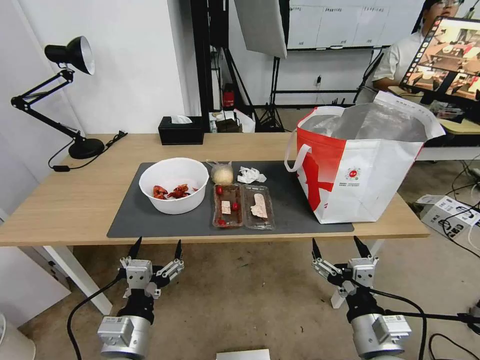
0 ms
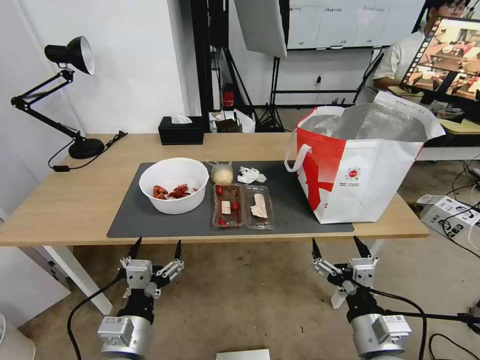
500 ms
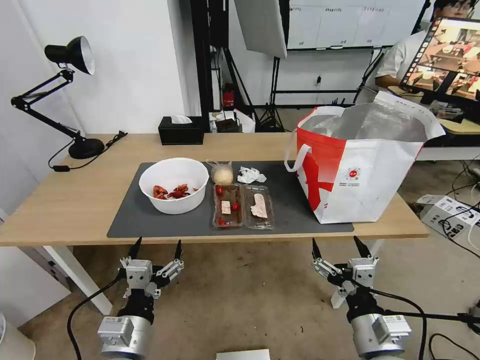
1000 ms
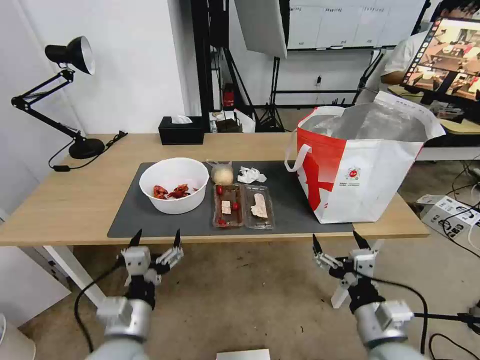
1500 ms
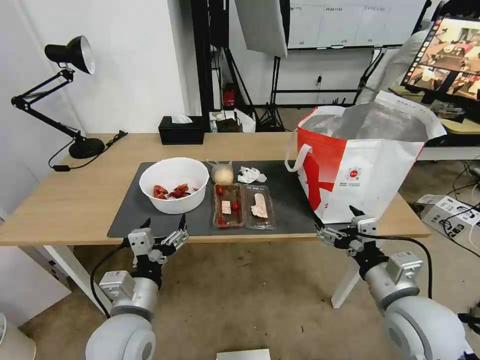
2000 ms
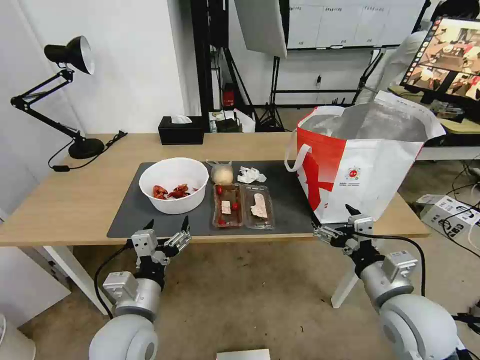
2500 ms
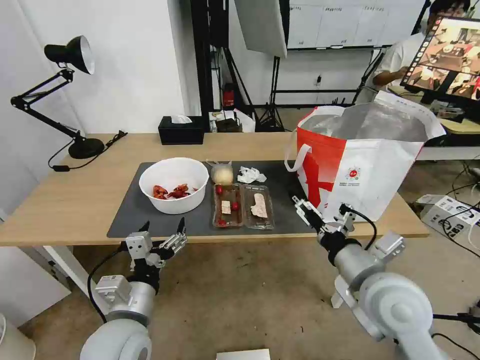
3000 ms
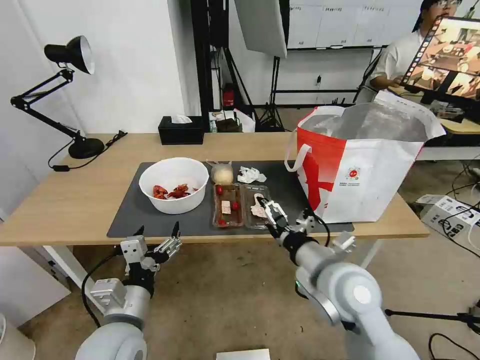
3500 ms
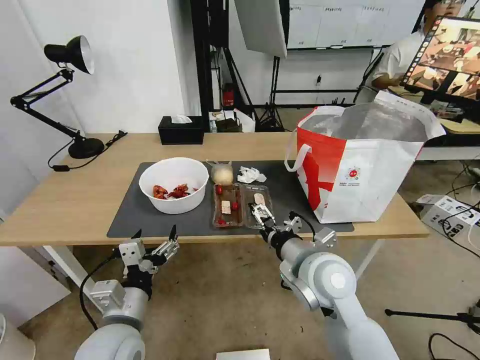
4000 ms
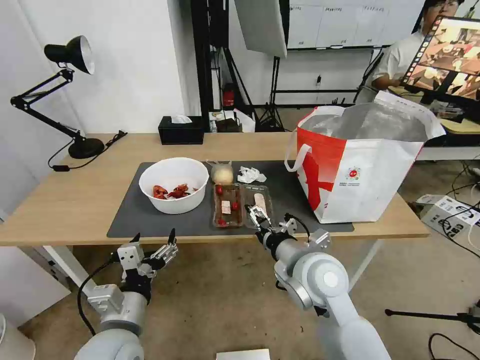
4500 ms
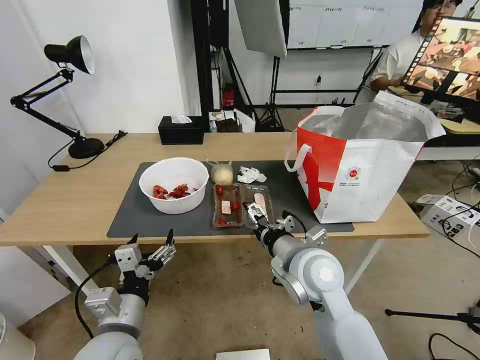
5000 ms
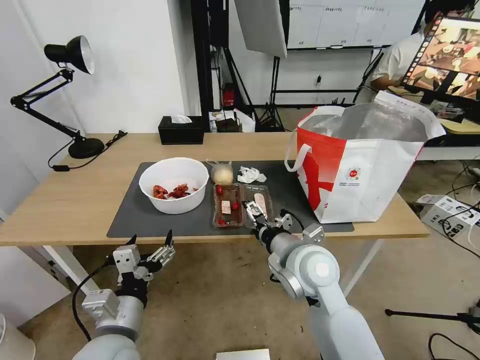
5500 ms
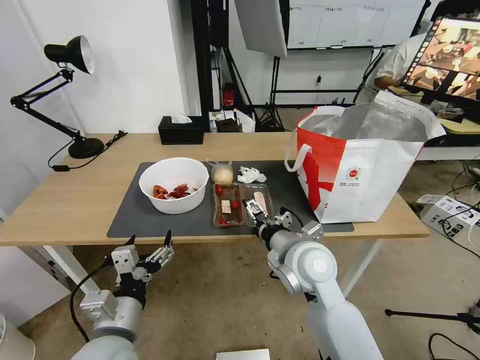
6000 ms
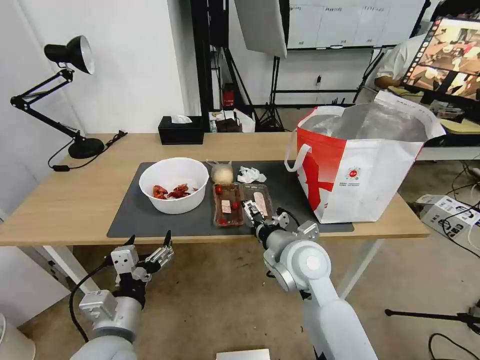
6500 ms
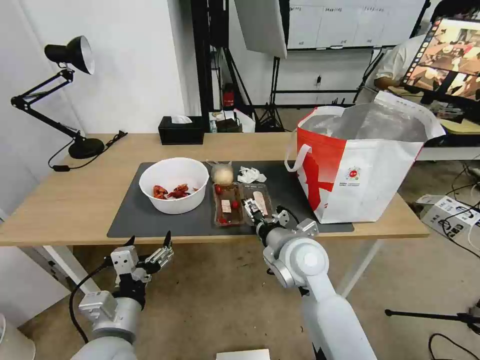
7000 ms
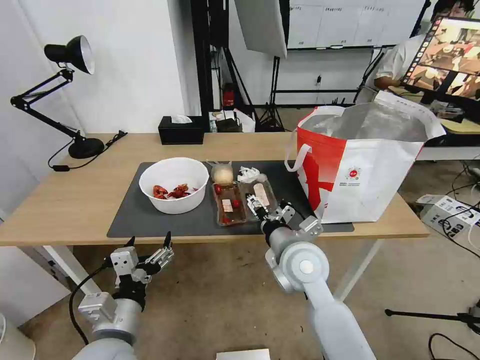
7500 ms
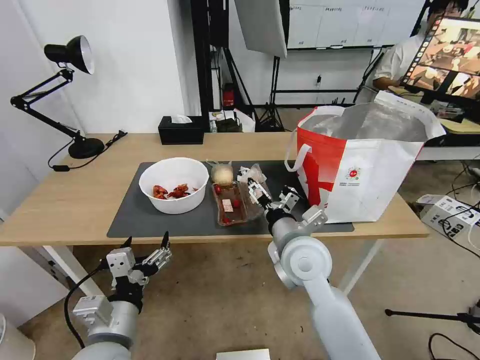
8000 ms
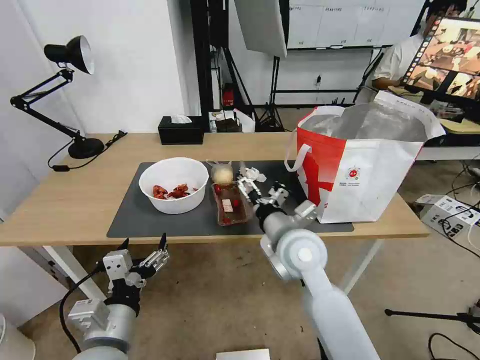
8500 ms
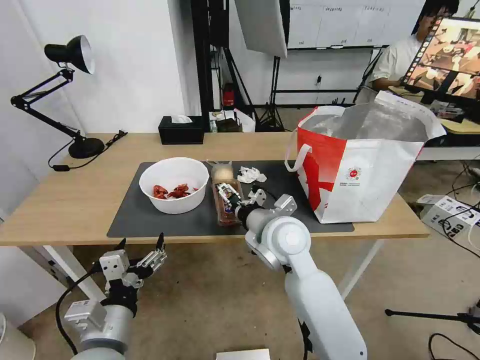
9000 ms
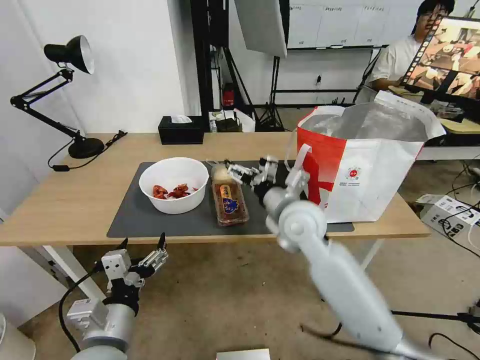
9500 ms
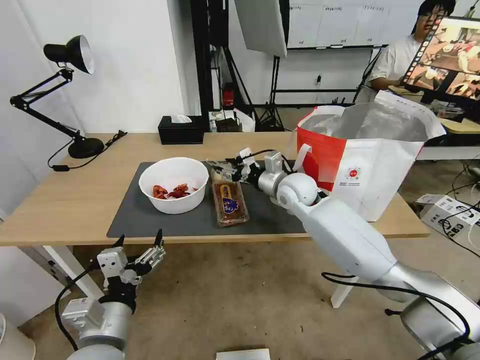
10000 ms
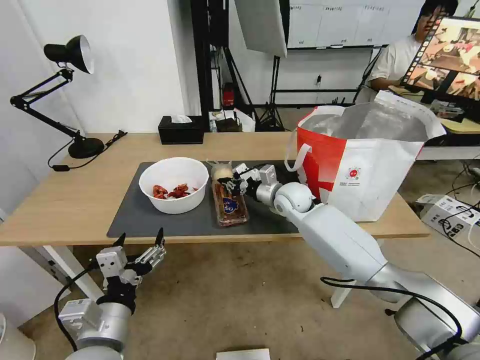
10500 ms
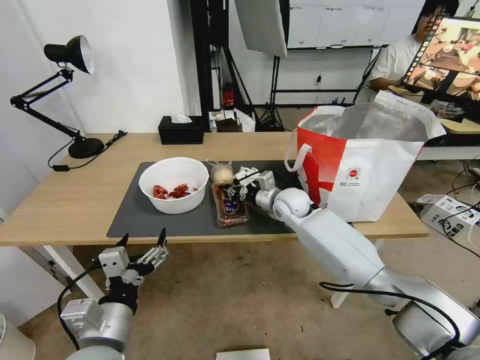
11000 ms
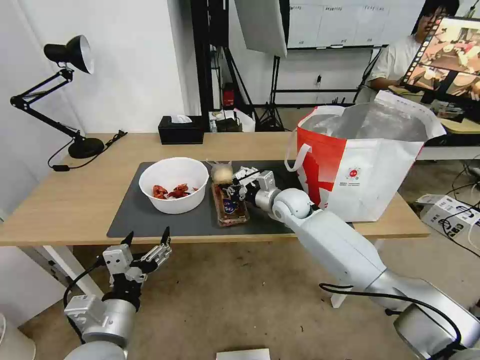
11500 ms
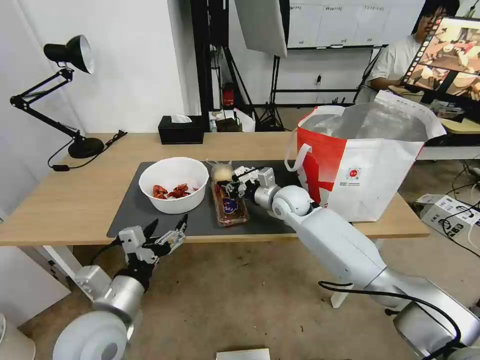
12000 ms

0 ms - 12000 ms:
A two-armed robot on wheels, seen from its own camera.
Task of the whole recording: Pick up the trash from the table and place it into the takeout bag.
2000 ms - 4000 ms: The right gripper goes about 15 cm to the left and forward.
4000 ms - 6000 ms: The grippers make only small movements.
8000 ms - 10000 ms: The right gripper travels forward by about 20 cm, and closes.
10000 ms - 12000 ms: The right gripper closes.

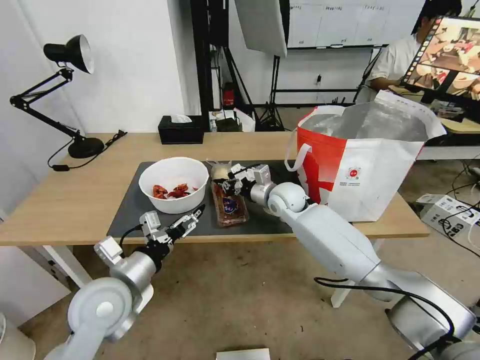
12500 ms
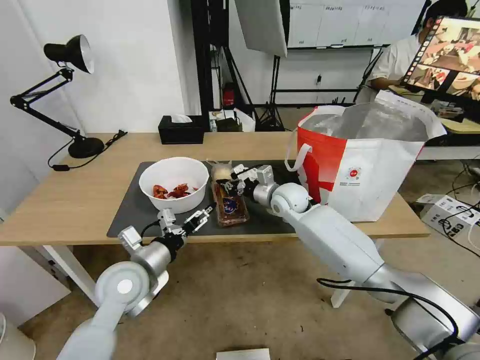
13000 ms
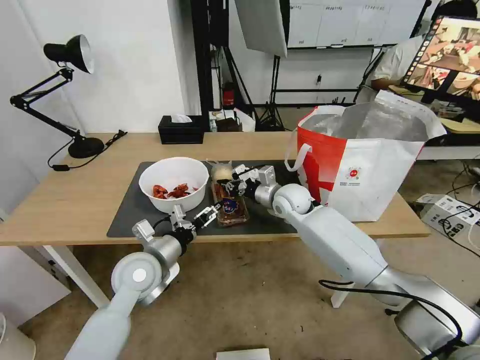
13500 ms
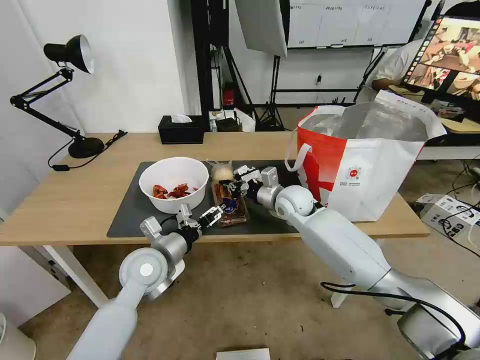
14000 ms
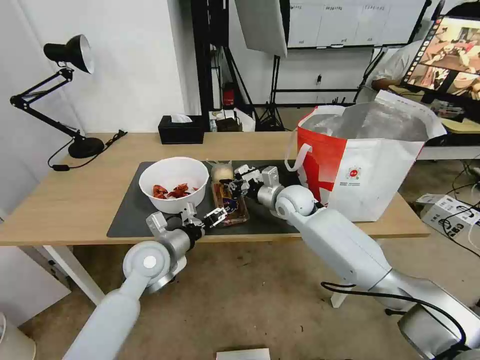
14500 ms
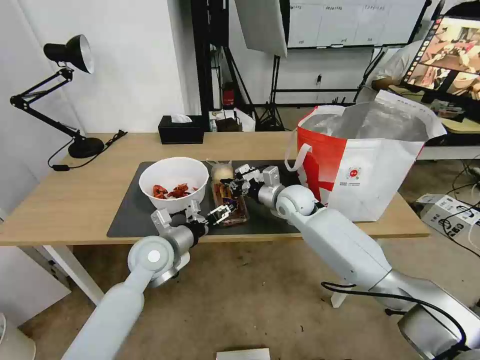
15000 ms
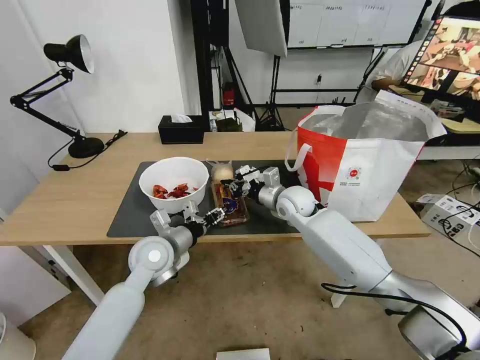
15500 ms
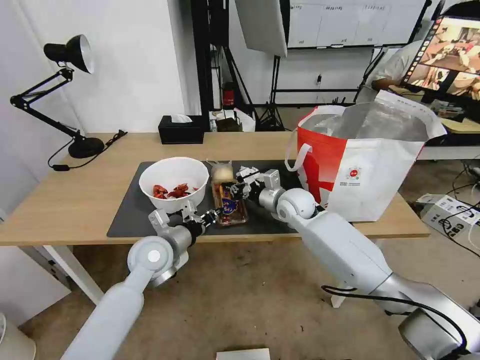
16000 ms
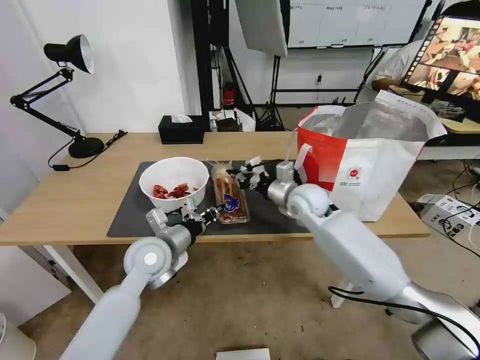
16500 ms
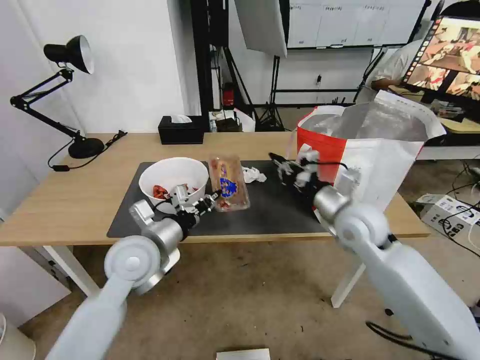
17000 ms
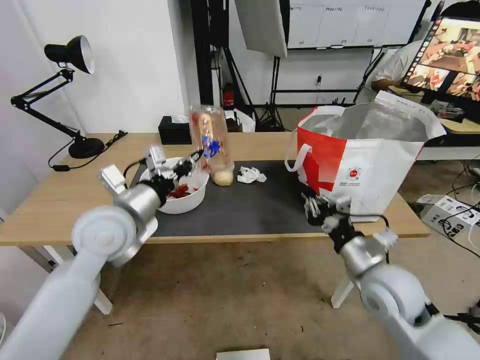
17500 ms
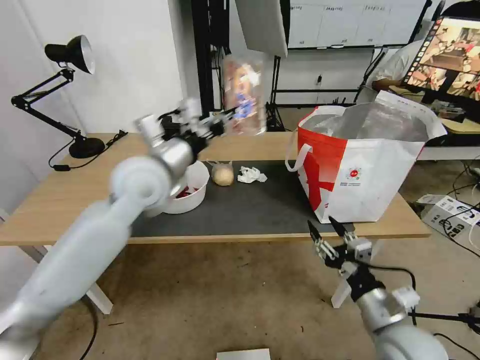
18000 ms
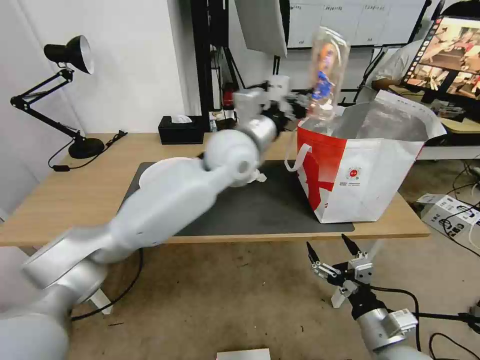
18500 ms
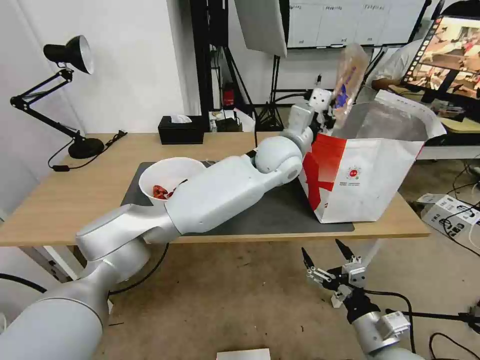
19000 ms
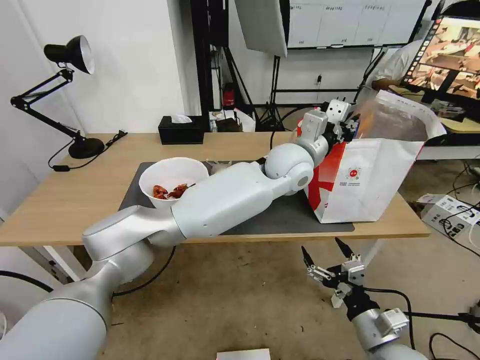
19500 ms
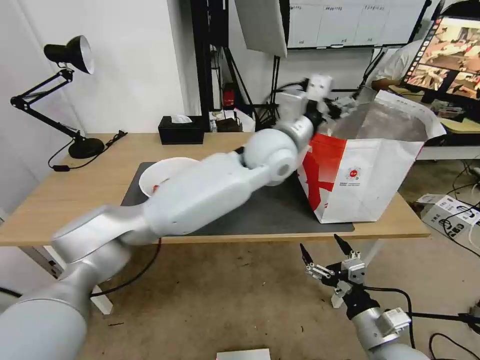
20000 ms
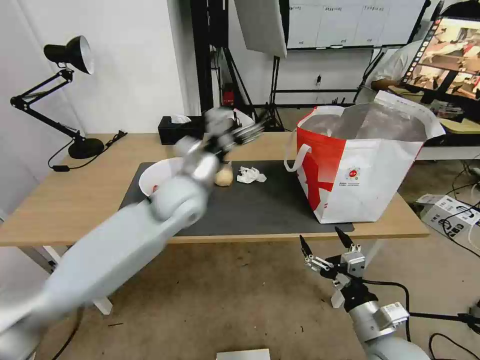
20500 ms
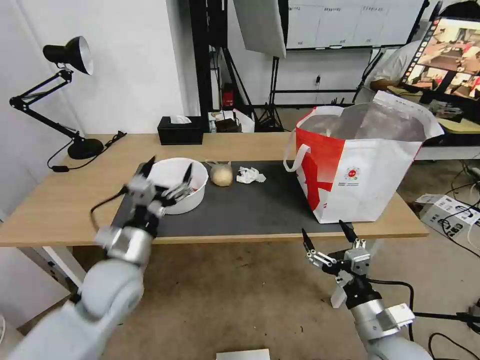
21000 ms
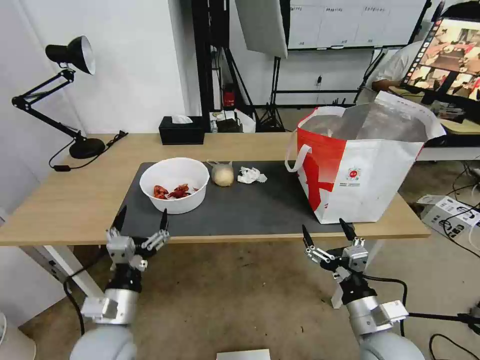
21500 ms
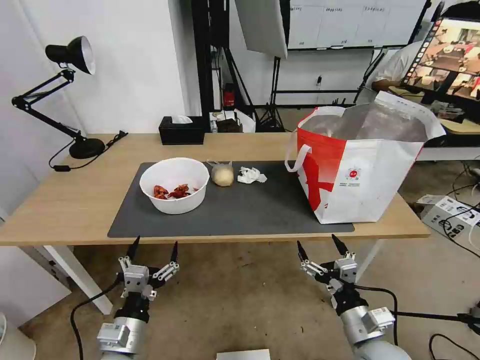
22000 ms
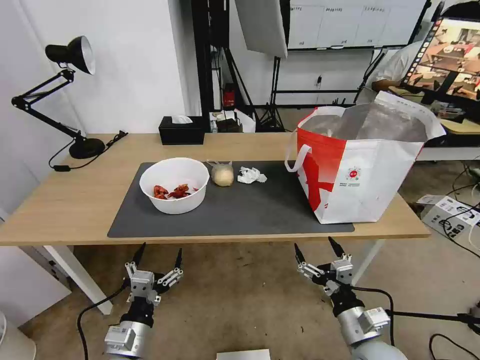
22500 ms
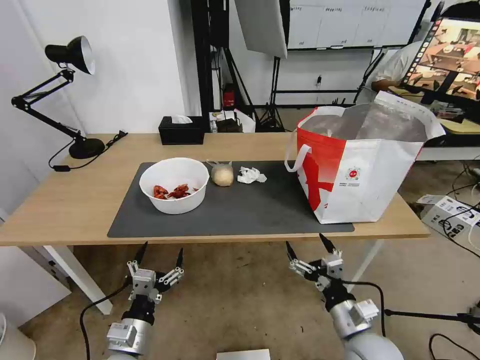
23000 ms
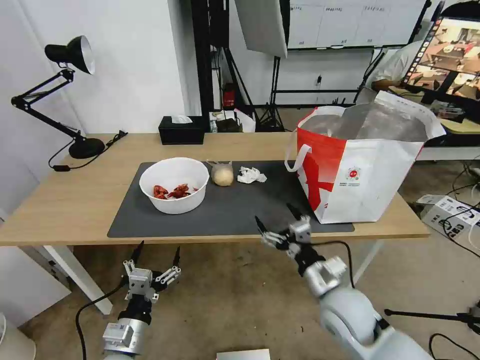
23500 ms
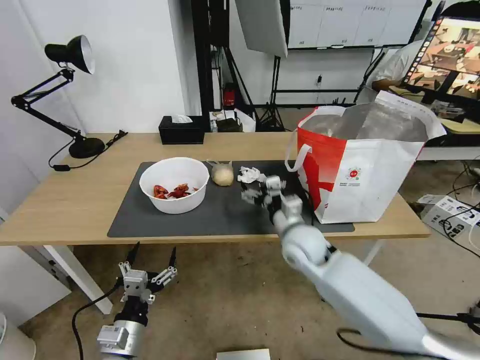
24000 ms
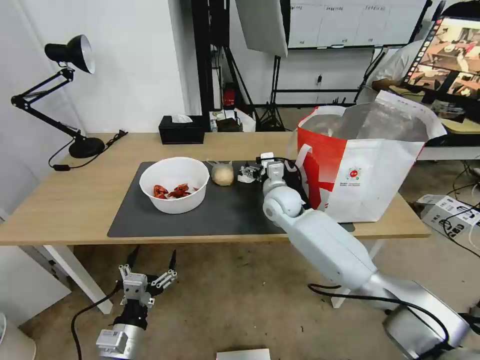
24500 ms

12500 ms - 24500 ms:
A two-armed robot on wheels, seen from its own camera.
Task of the whole recording: Pick up the trash from the table and place it into the takeout bag.
12500 ms - 14500 ms: The left gripper heads forward, covering approximately 10 cm.
14500 ms - 16500 ms: The left gripper closes its fingers.
16500 ms - 18500 ms: The left gripper heads upward, to the right and forward, covering approximately 30 cm. The right gripper moves backward, about 35 cm, and opens up.
18500 ms - 20500 ms: The left gripper moves to the left, downward and backward, roughly 15 cm, and opens up.
20500 ms - 22500 ms: The left gripper heads backward and downward, covering approximately 35 cm.
22500 ms - 24500 ms: The right gripper travels forward and to the left by approximately 35 cm.

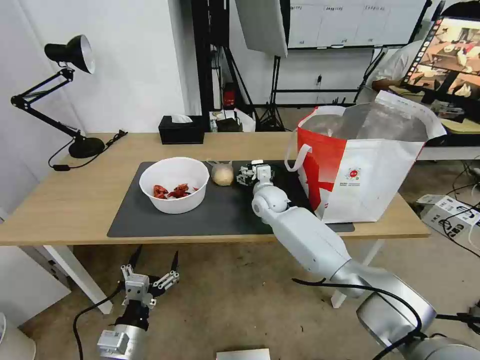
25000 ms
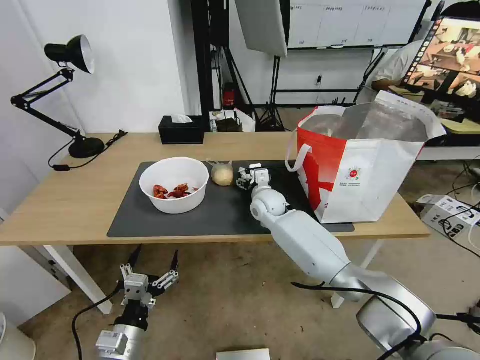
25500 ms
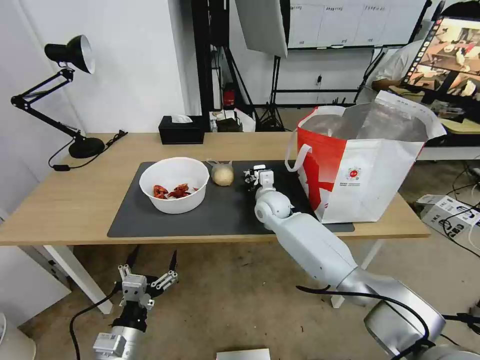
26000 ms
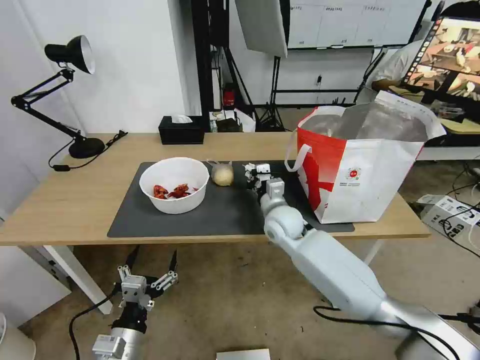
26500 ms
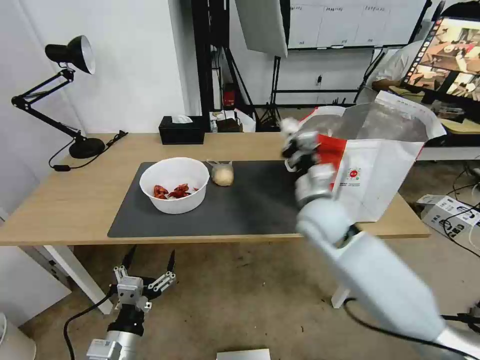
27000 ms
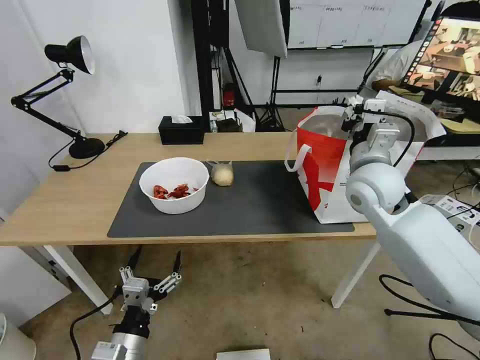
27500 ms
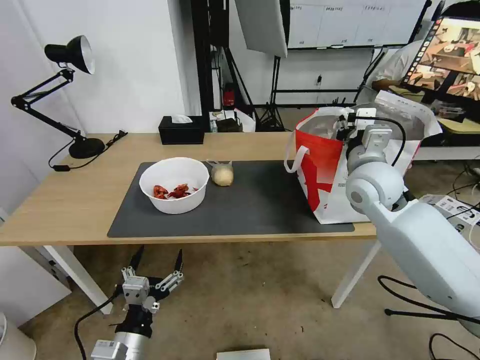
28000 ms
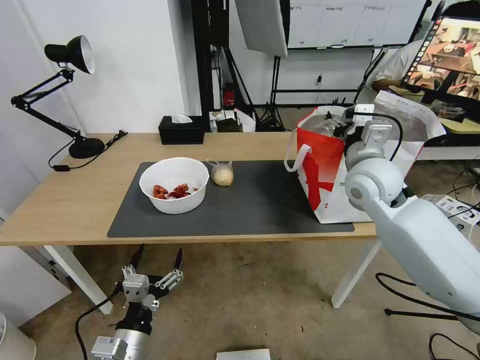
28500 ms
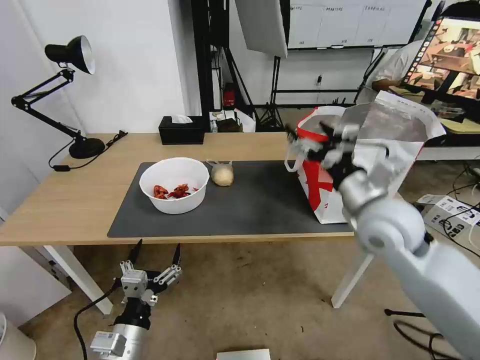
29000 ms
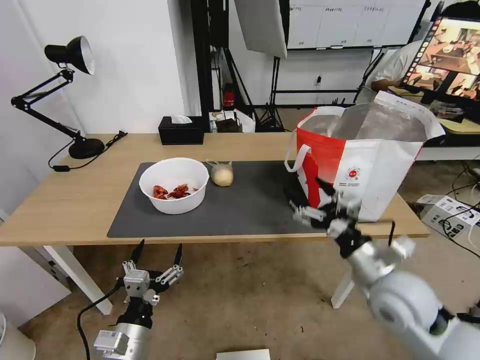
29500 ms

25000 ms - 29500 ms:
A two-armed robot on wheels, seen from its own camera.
Task of the whole recording: Pick up the trash from the table and place it into the takeout bag.
25000 ms - 27000 ms: The right gripper shifts approximately 20 cm backward, upward and to the right, and closes up.
27000 ms - 29500 ms: The right gripper moves backward and to the right, roughly 20 cm, and opens up.
